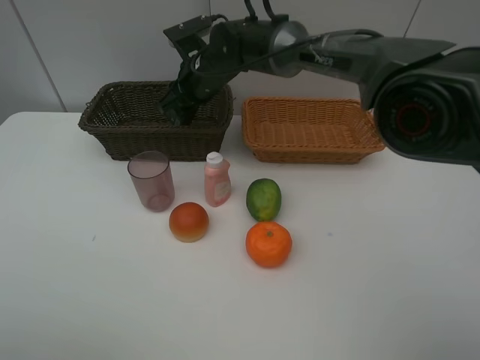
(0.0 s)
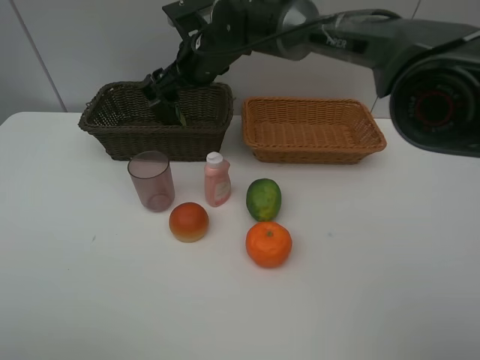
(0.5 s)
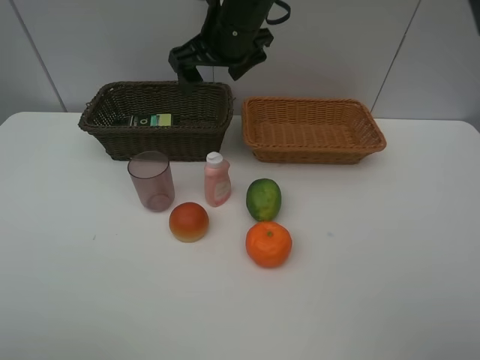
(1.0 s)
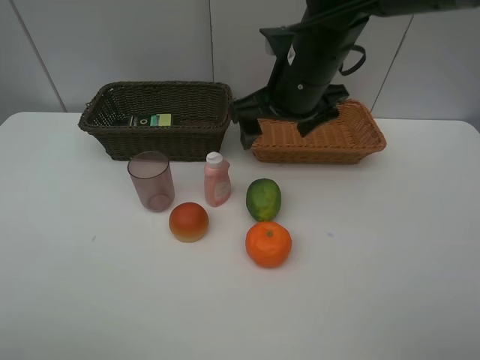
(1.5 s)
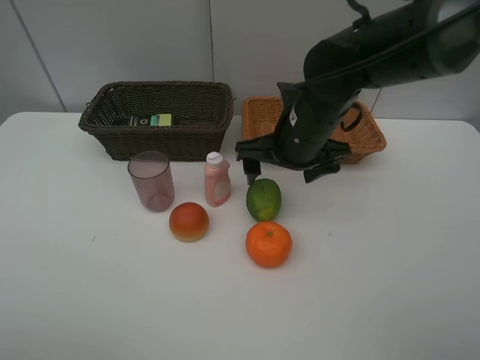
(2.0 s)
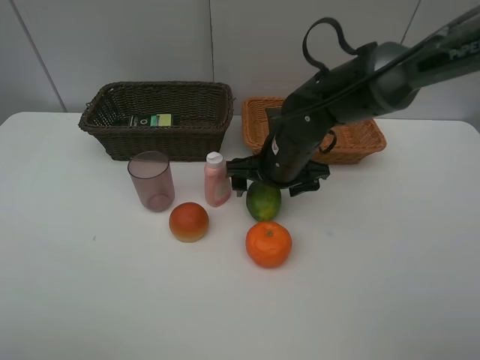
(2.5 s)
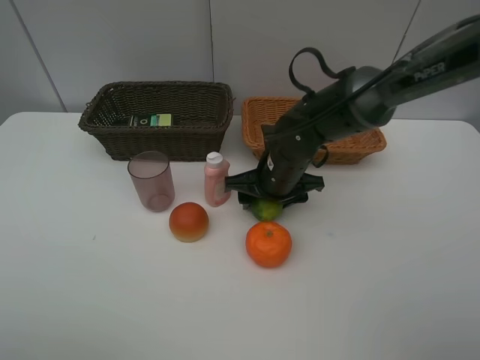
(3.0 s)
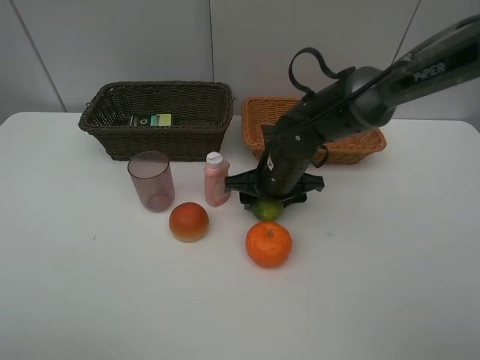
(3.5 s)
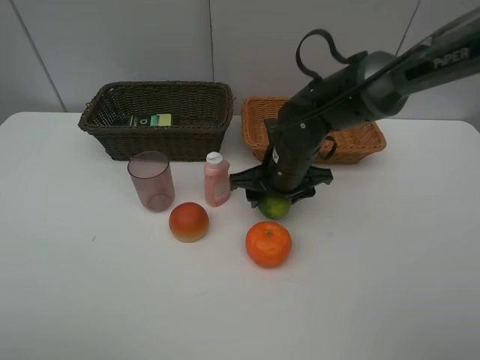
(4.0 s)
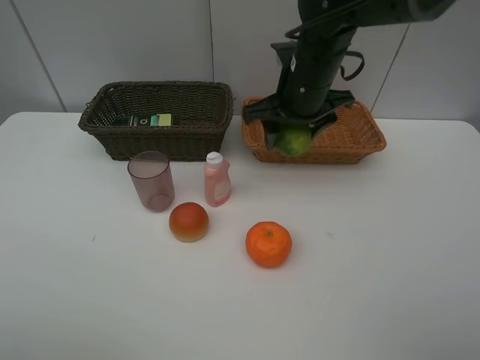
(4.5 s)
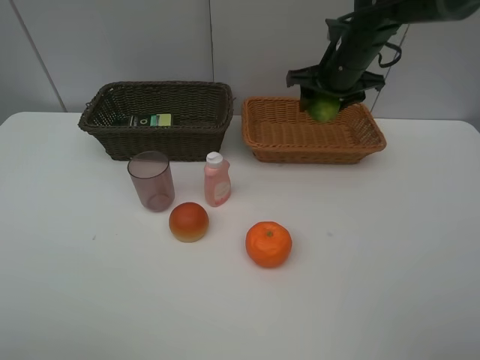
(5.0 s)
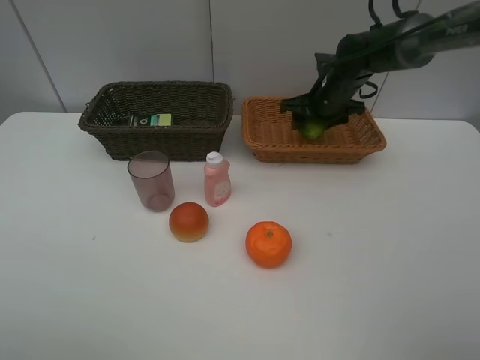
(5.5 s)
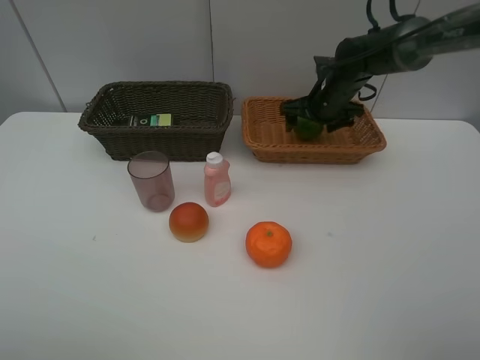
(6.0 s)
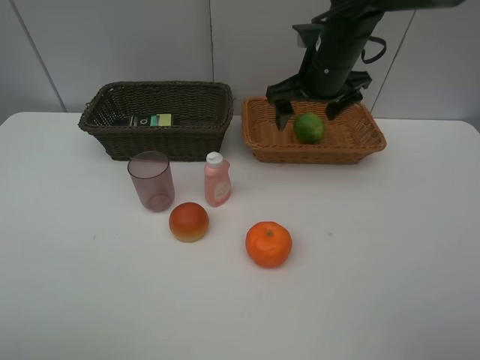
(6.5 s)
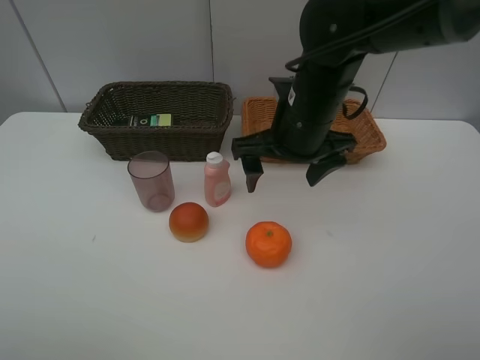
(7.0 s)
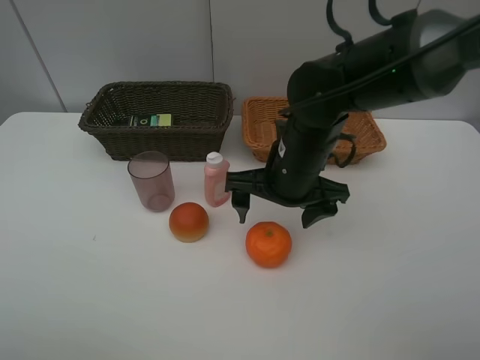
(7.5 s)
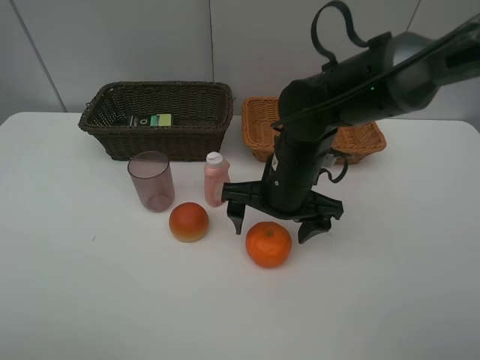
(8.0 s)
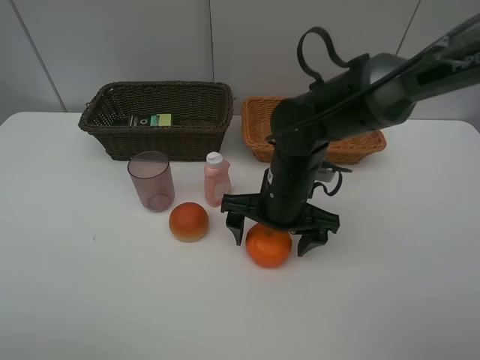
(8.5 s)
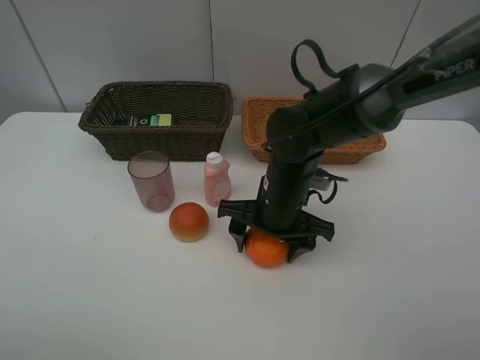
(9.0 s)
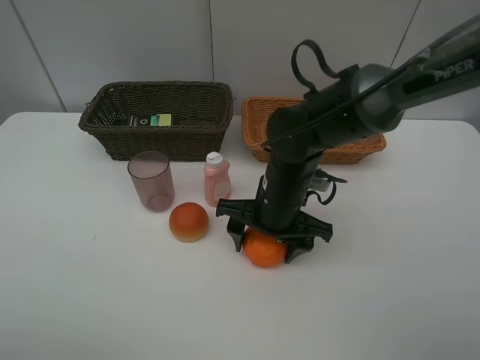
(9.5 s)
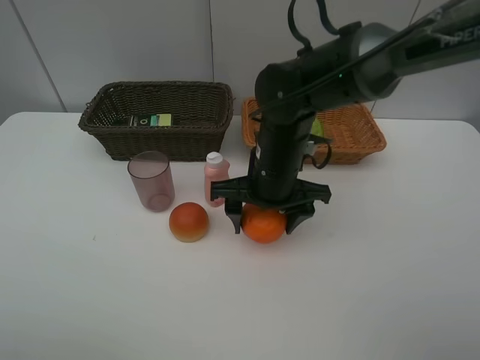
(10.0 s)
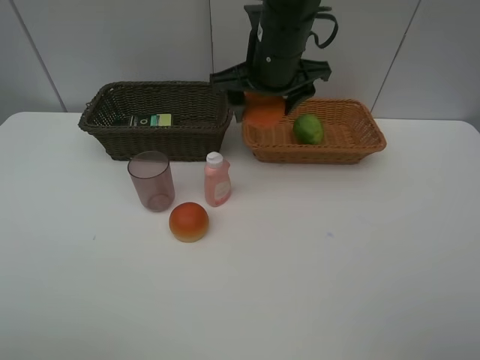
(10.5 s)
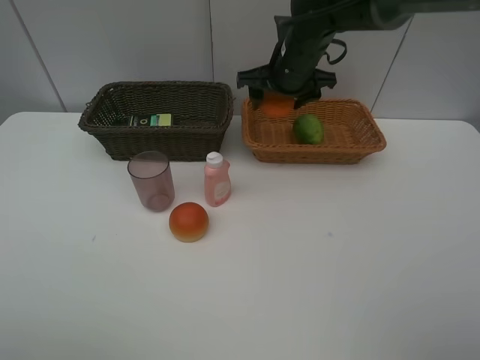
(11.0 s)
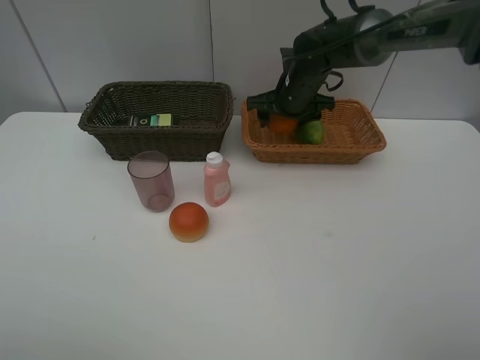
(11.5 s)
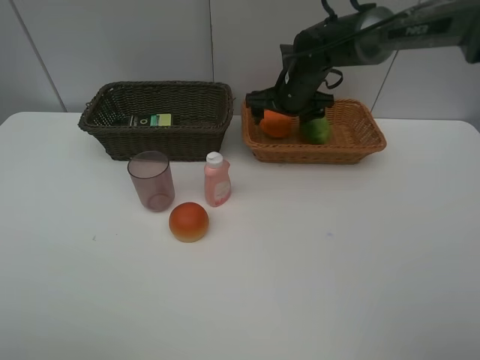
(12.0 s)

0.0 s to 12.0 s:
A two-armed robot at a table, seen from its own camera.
Task of the whole recording: place multiple objects separately in different baskets.
0.0 to 2.0 s: The right gripper moves backward and to the right, approximately 20 cm, and opens.
2.0 to 4.0 s: The right gripper goes roughly 5 cm downward, and closes up.
4.0 to 6.0 s: The right gripper travels forward and to the right by approximately 20 cm, and opens its fingers.
6.0 to 8.0 s: The right gripper moves backward and to the left, approximately 25 cm.
8.0 to 10.0 s: The right gripper closes its fingers.
10.0 to 12.0 s: The right gripper goes some 20 cm forward, and opens.

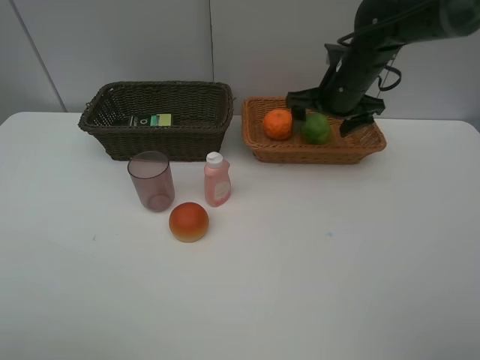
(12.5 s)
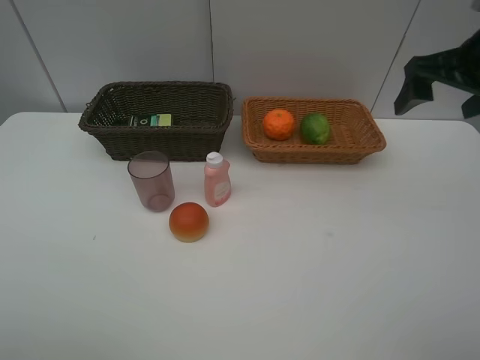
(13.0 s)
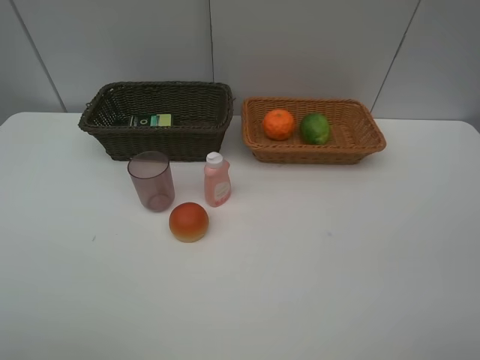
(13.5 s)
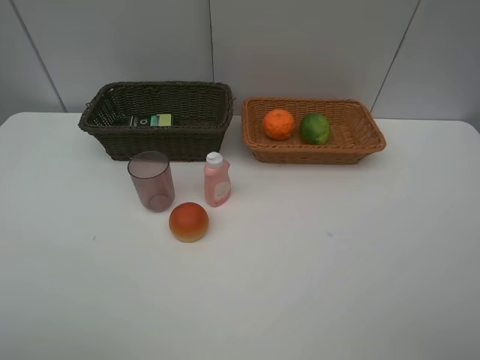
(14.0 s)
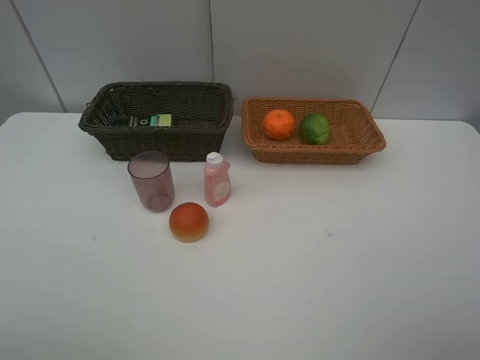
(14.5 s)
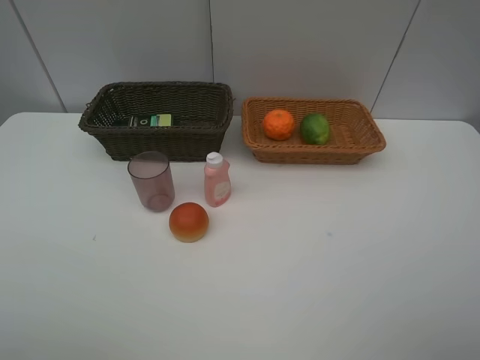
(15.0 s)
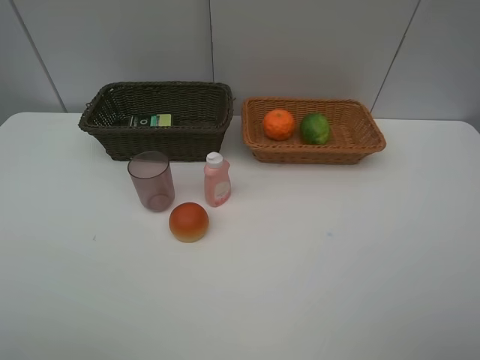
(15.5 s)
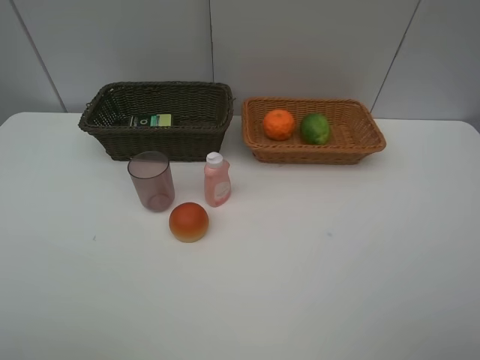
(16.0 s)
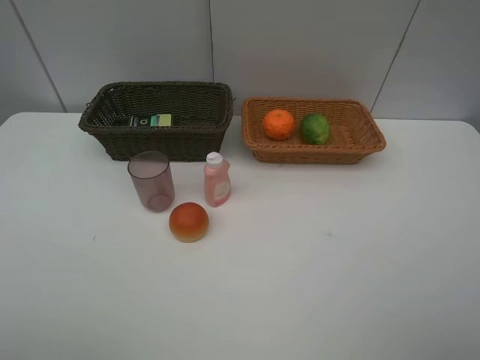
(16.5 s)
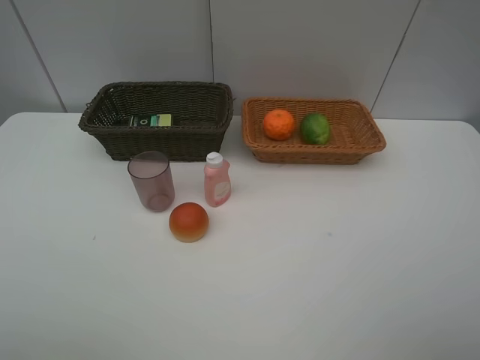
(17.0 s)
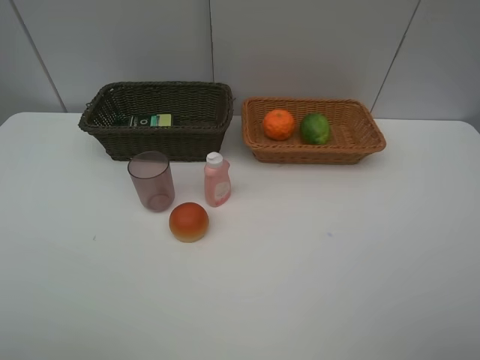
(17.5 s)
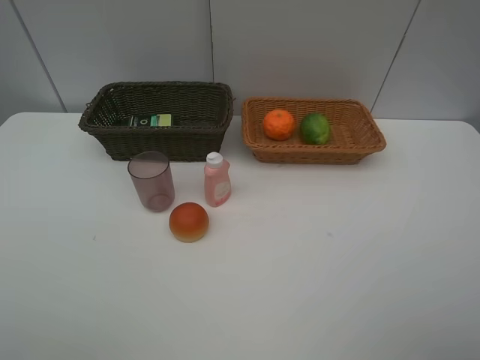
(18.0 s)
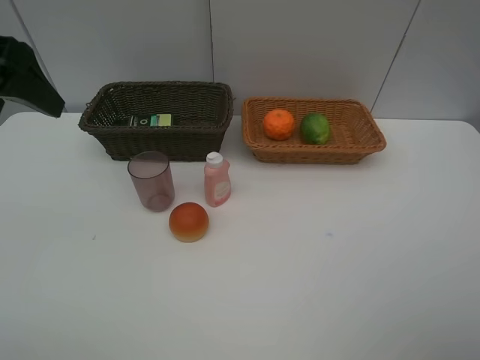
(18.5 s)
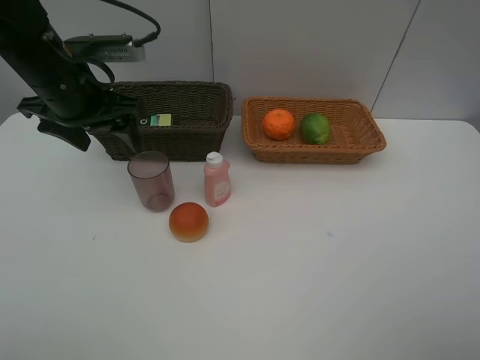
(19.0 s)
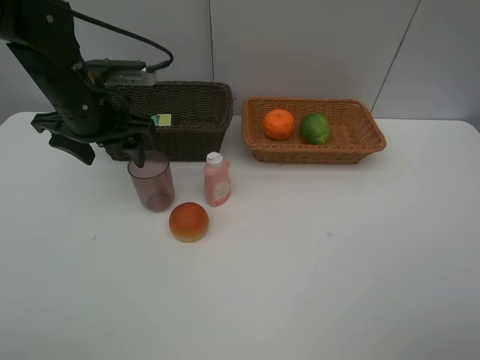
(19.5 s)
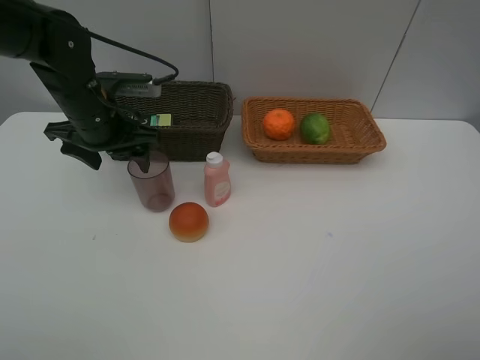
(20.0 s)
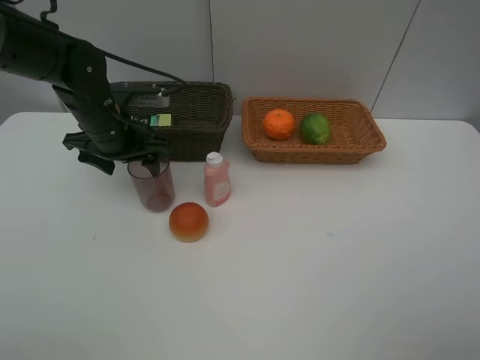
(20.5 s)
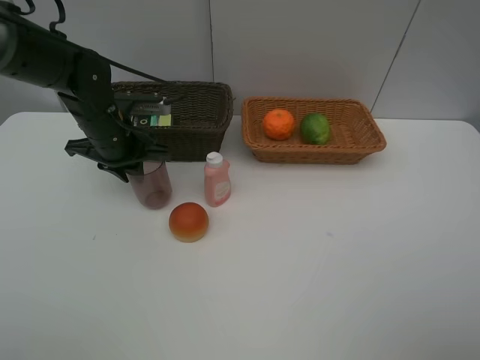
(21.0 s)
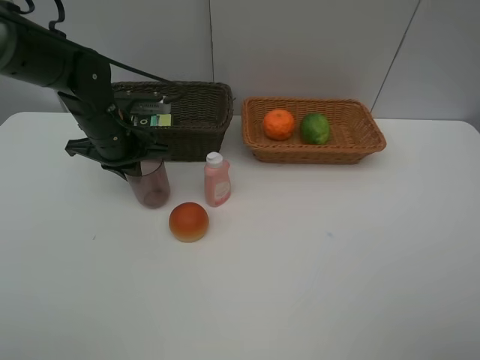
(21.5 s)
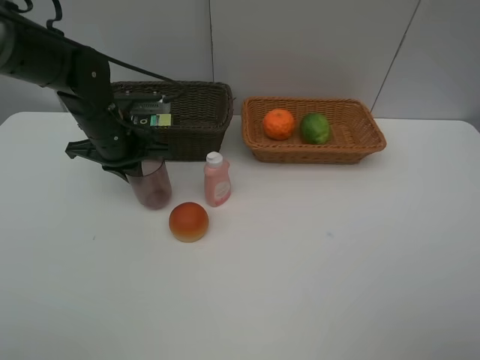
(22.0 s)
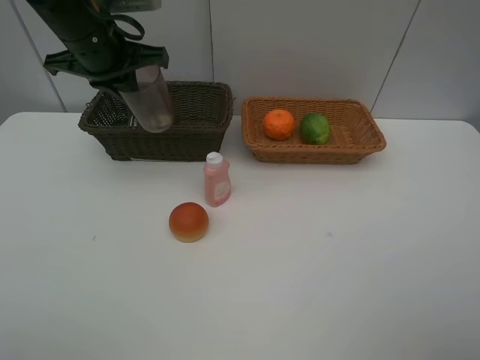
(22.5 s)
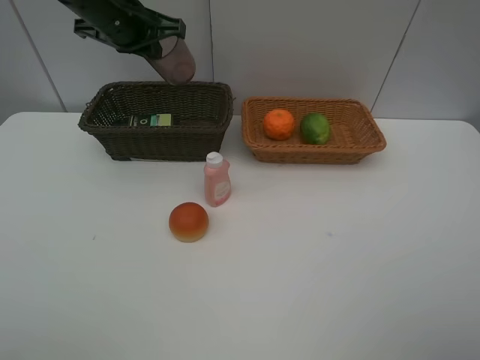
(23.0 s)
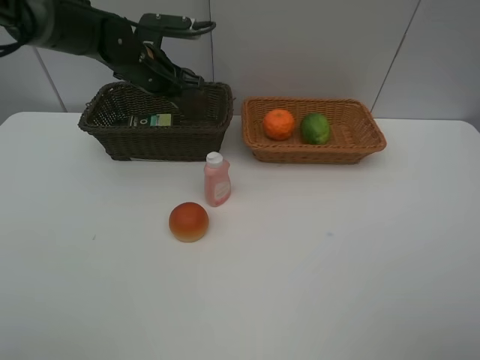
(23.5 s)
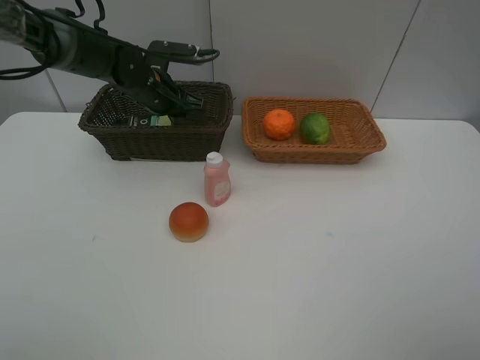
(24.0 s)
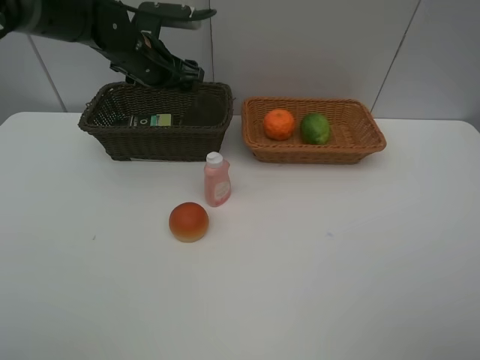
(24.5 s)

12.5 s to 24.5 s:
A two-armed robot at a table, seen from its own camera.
Task of the whole recording: place multiple objects separately in different baskets.
12.5 to 14.5 s: The right gripper is displaced backward by roughly 40 cm.
16.5 to 18.5 s: The left gripper moves forward, approximately 25 cm.
18.5 to 20.5 s: The left gripper heads downward, forward and to the right, covering roughly 20 cm.
20.5 to 22.5 s: The left gripper is displaced upward by roughly 15 cm, and closes up.
22.5 to 24.5 s: The left gripper is displaced downward and forward by about 10 cm, and opens up.

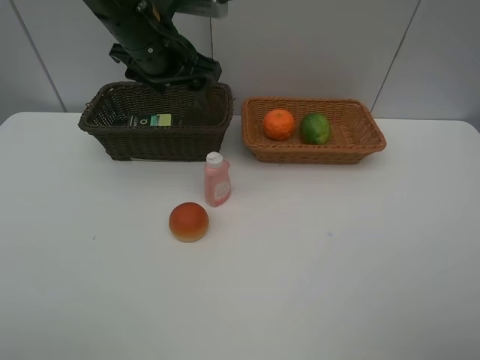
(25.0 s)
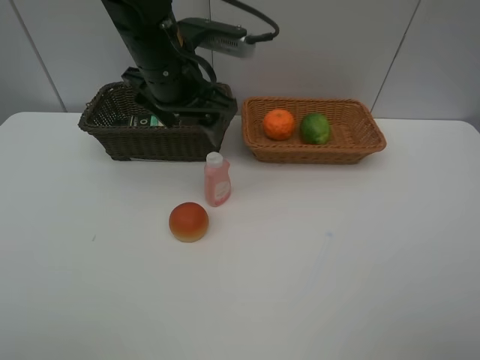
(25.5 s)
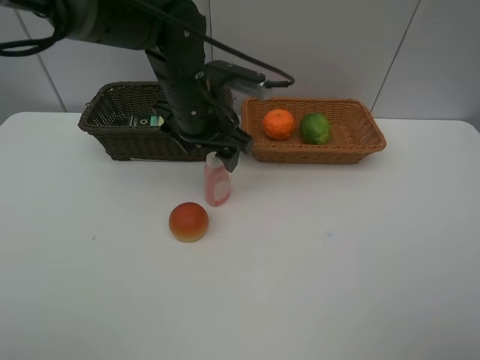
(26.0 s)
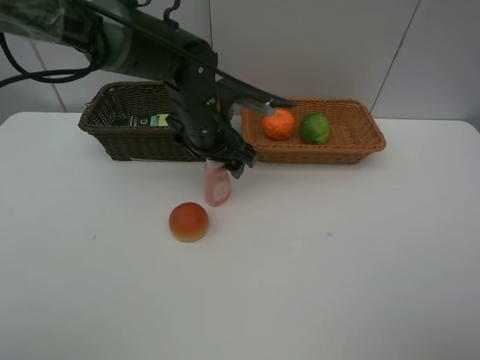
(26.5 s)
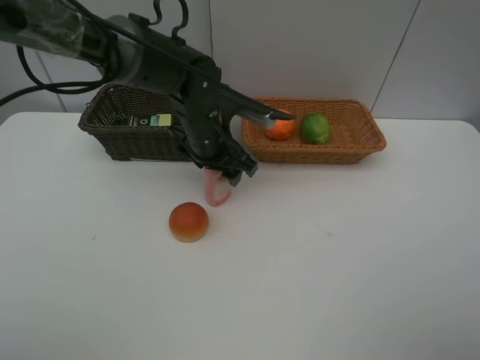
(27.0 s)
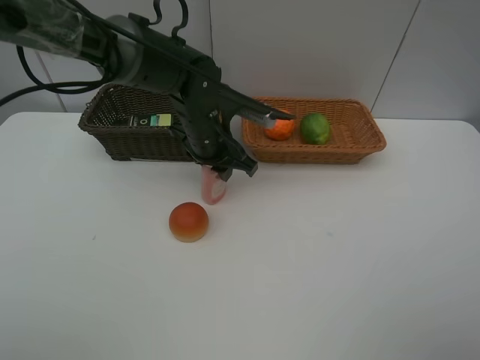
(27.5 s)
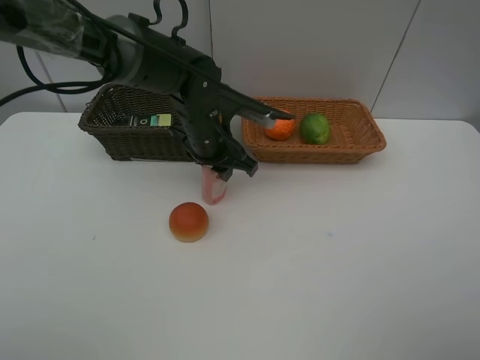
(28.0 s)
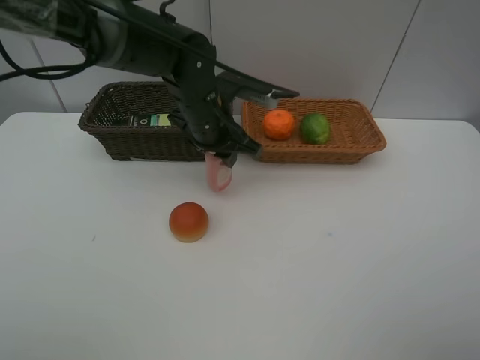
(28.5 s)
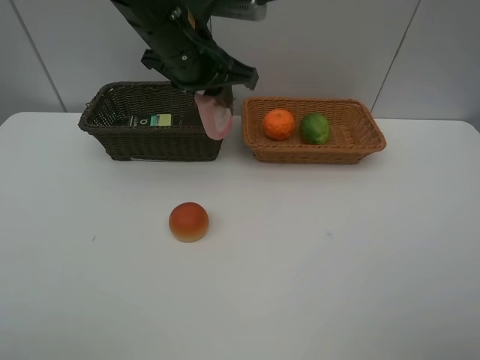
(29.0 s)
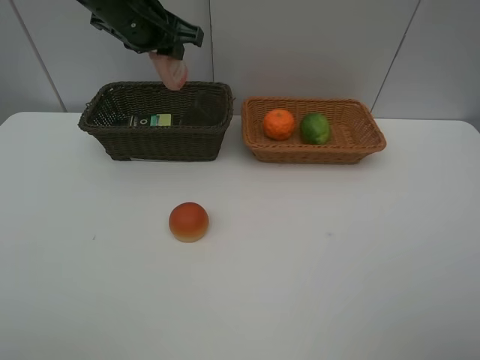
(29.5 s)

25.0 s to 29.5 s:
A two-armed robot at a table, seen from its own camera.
Task of the whole recording: place multiple objects separately in different baskets.
25.0 to 27.0 s: The left gripper is displaced downward and to the right by approximately 15 cm.
27.0 to 29.5 s: The left gripper heads upward and to the left, covering some 20 cm, and closes.
